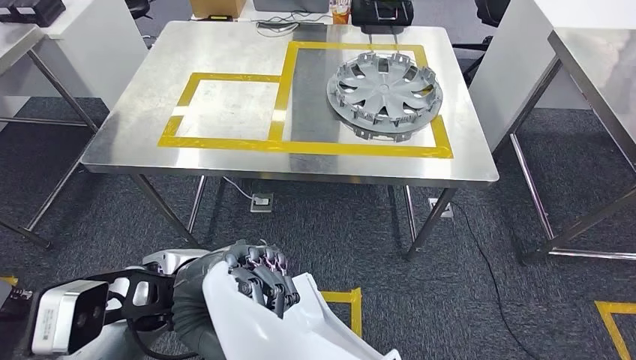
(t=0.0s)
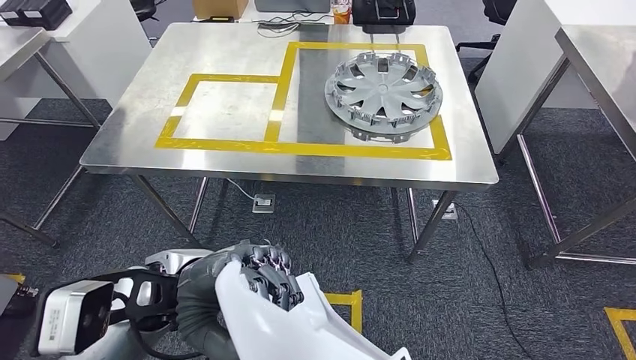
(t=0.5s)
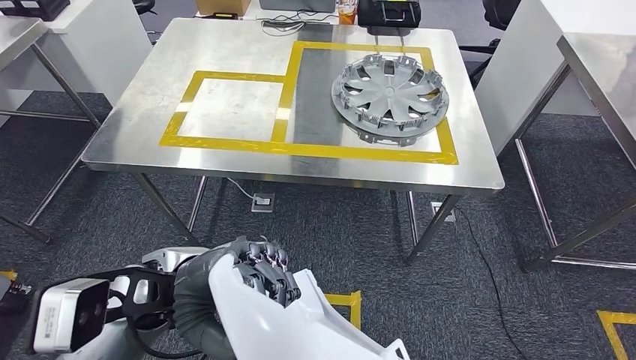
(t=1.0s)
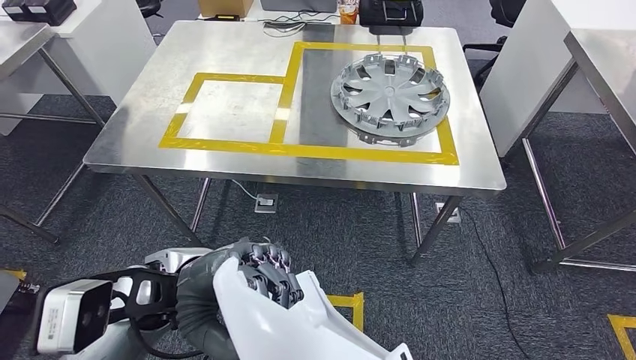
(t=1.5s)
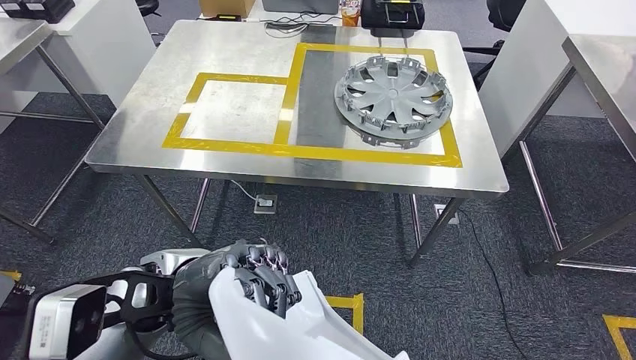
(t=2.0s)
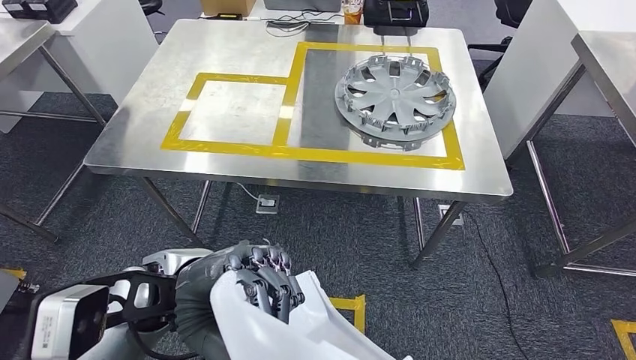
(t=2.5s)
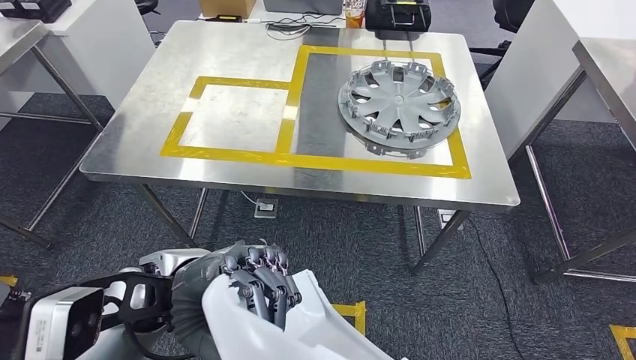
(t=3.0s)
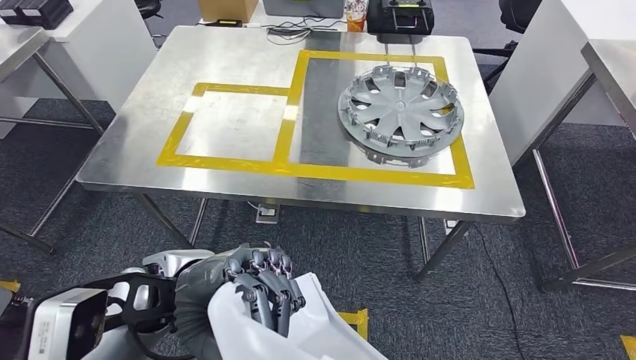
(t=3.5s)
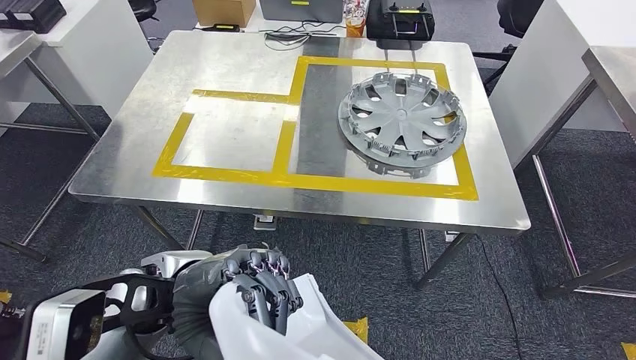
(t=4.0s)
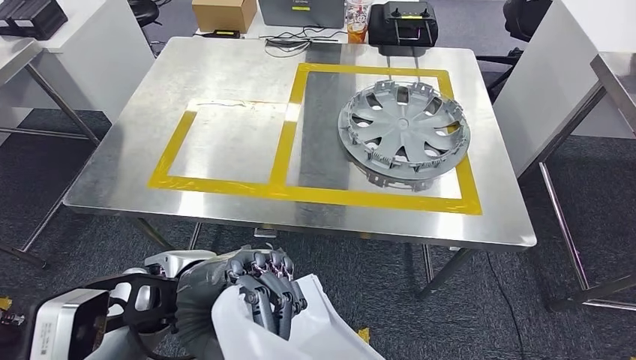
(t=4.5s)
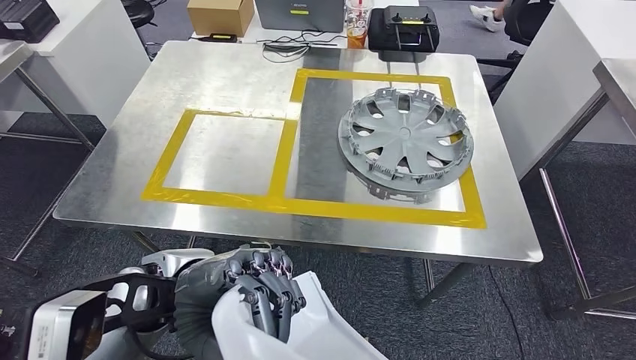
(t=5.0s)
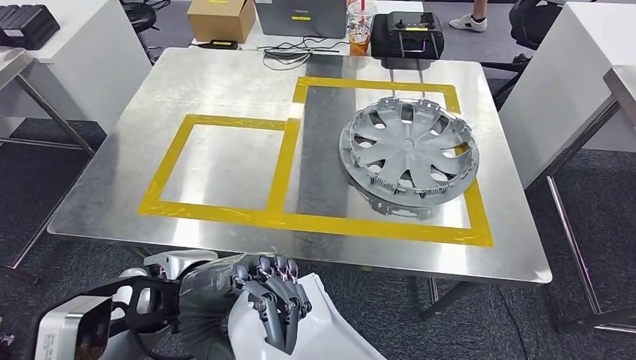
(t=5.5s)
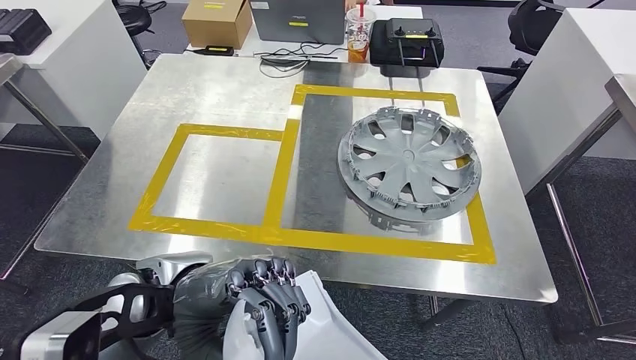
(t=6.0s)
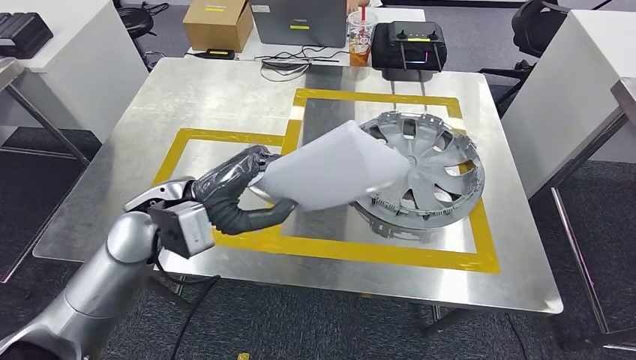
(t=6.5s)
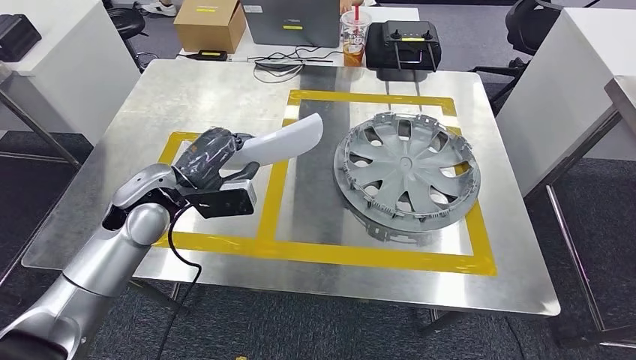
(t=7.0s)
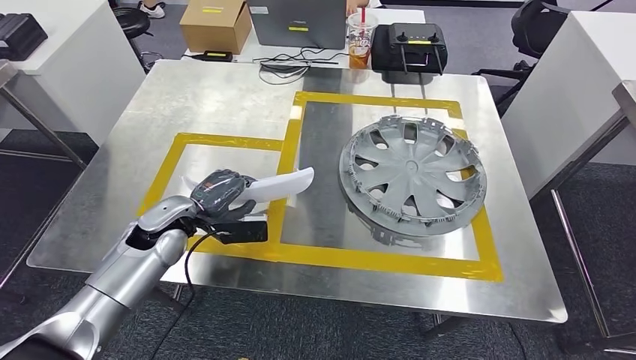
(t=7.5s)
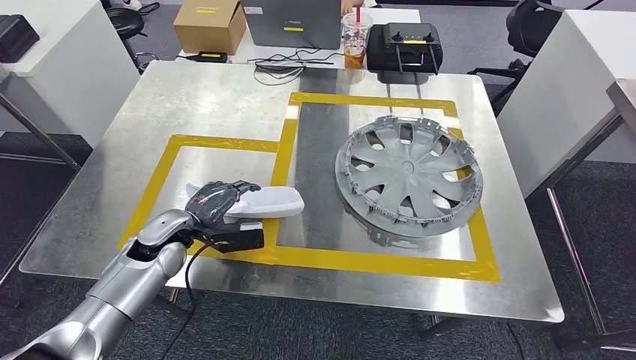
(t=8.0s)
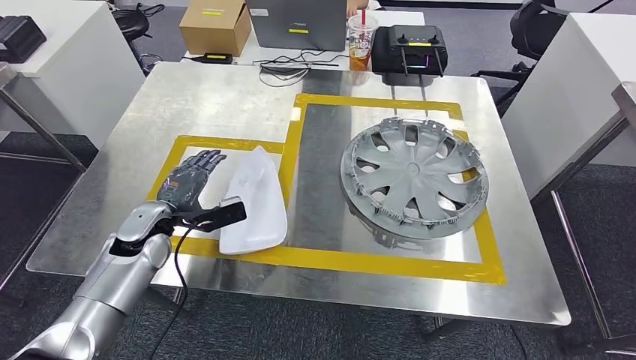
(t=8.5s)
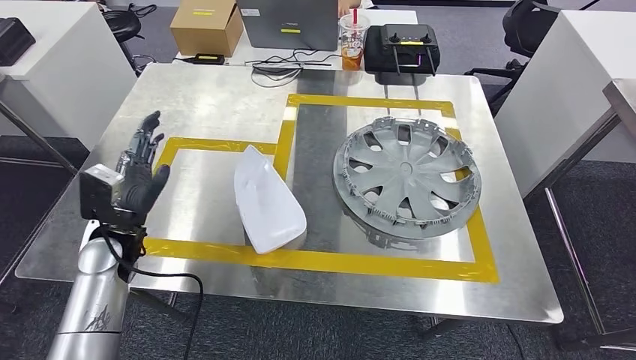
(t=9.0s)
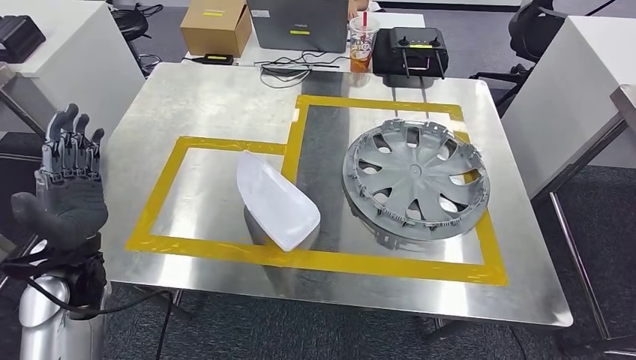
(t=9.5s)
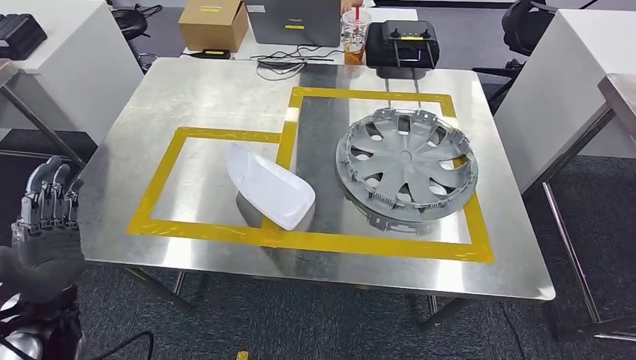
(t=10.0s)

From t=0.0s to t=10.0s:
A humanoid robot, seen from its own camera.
Step, from t=0.0s to t=8.5s: Insert the small parts into the corresponding holes on the workbench.

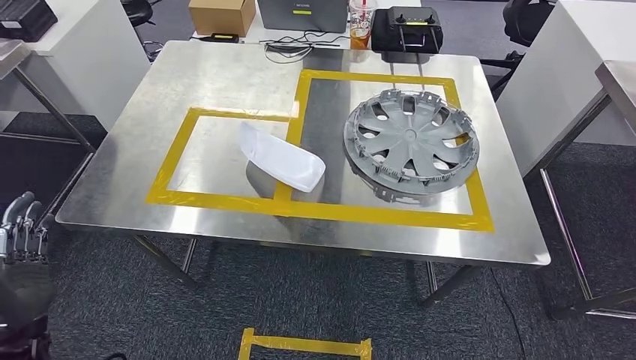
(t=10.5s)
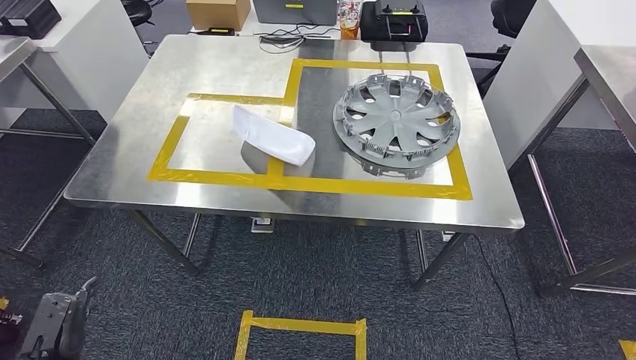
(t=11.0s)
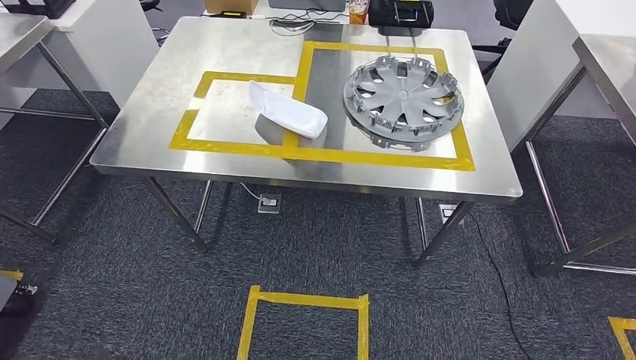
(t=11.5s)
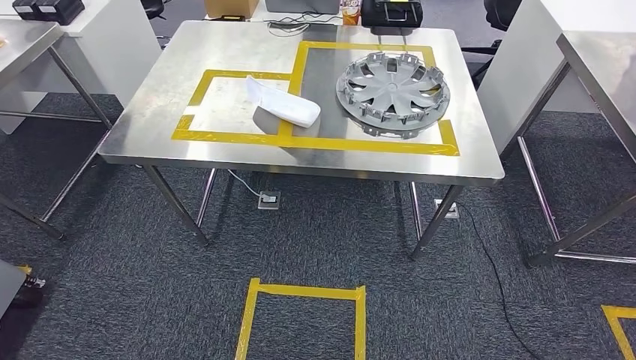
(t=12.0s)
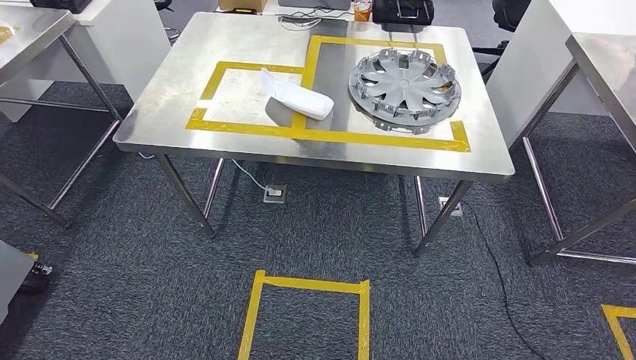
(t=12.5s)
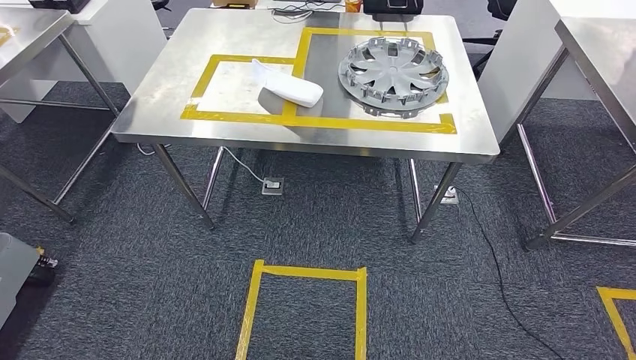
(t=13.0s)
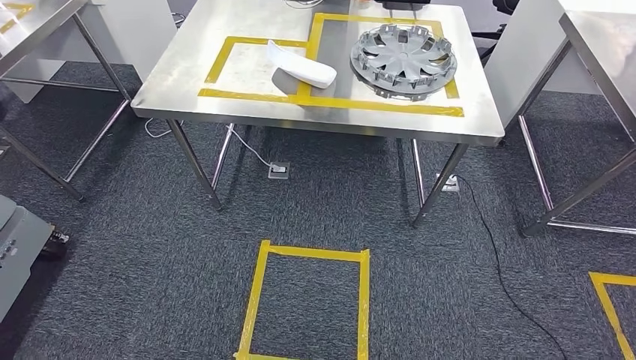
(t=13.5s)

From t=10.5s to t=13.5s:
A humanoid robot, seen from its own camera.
Step, from t=10.5s to t=13.5s: Move to the initial position of the workbench.
